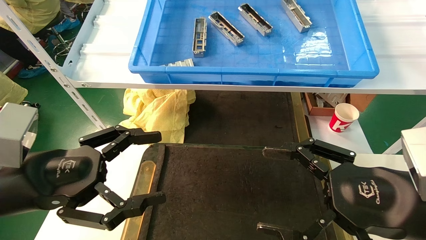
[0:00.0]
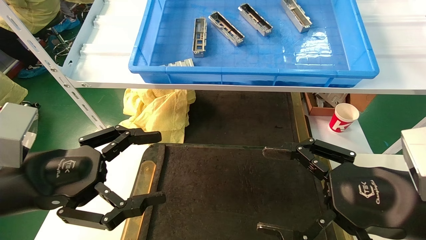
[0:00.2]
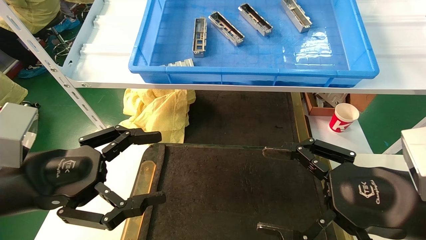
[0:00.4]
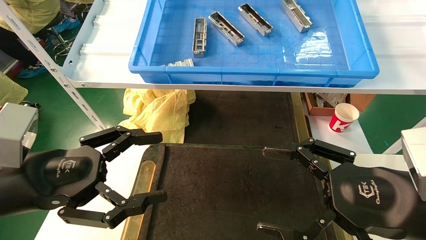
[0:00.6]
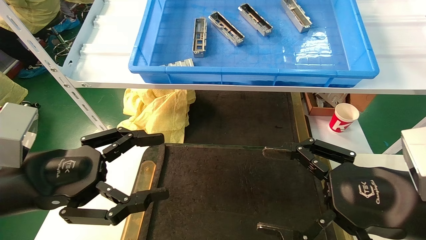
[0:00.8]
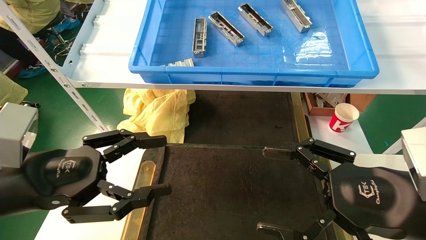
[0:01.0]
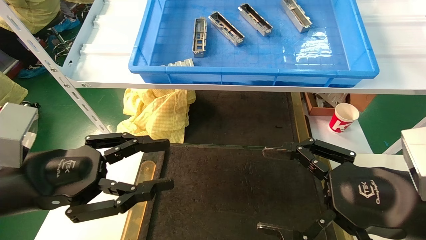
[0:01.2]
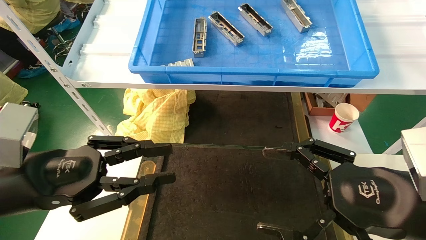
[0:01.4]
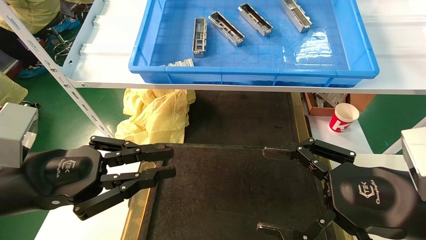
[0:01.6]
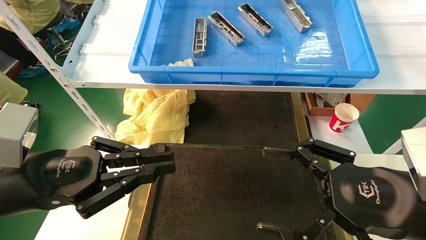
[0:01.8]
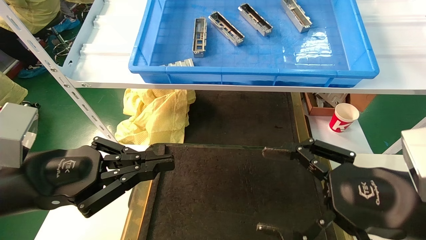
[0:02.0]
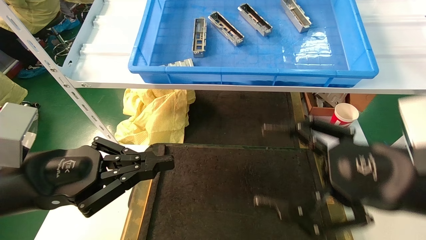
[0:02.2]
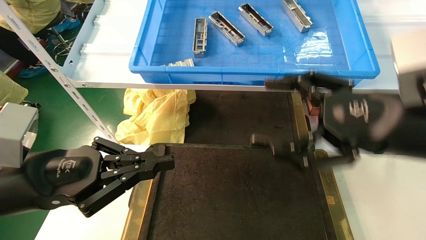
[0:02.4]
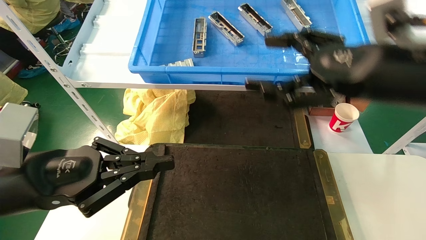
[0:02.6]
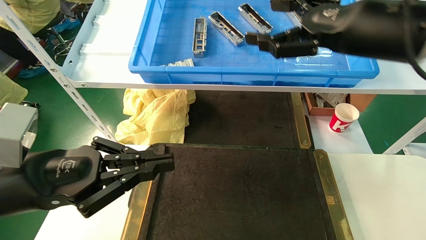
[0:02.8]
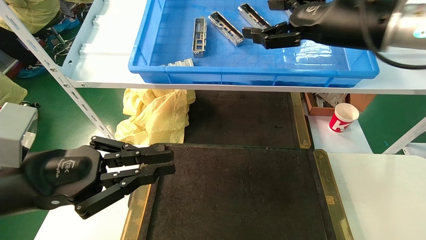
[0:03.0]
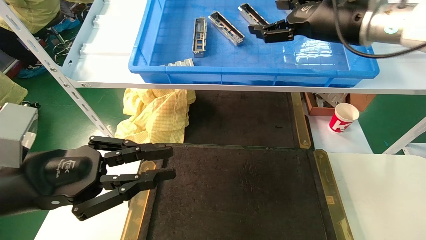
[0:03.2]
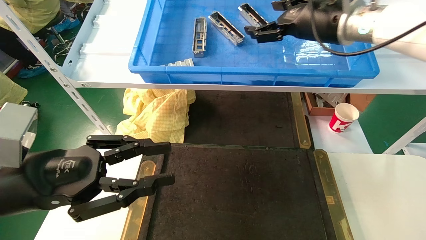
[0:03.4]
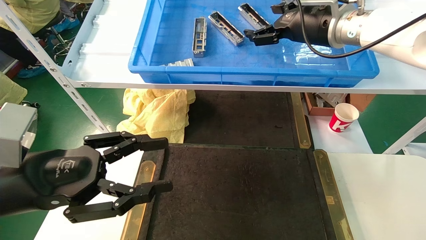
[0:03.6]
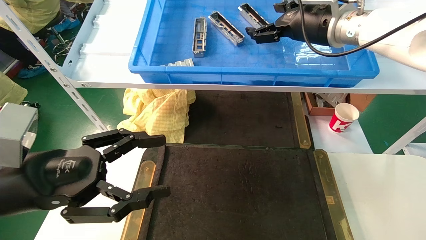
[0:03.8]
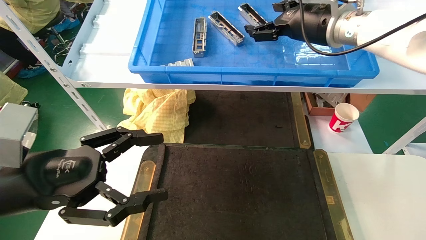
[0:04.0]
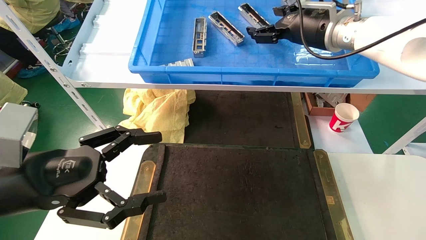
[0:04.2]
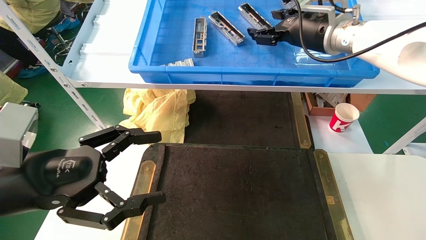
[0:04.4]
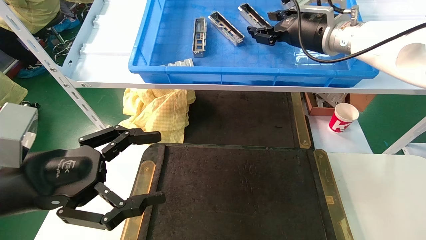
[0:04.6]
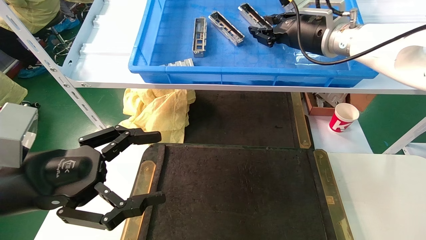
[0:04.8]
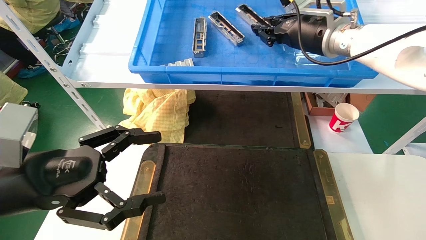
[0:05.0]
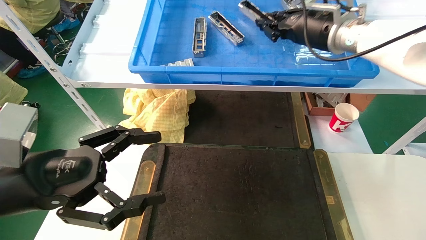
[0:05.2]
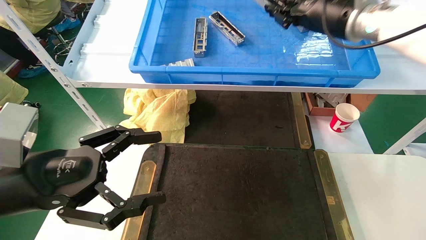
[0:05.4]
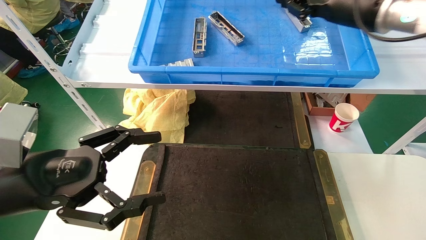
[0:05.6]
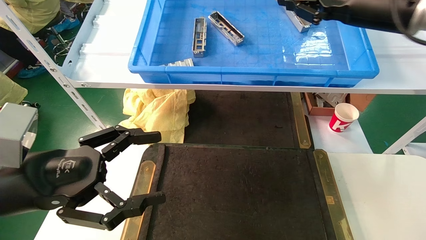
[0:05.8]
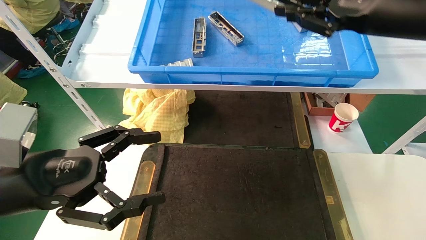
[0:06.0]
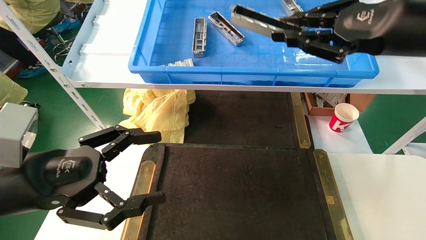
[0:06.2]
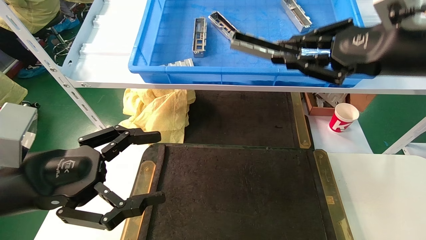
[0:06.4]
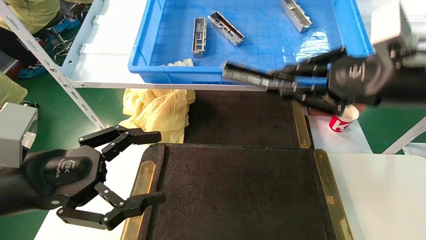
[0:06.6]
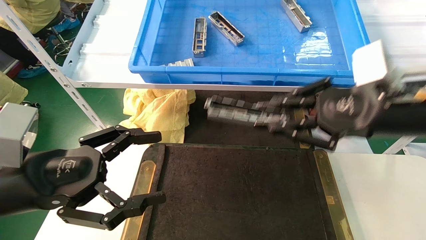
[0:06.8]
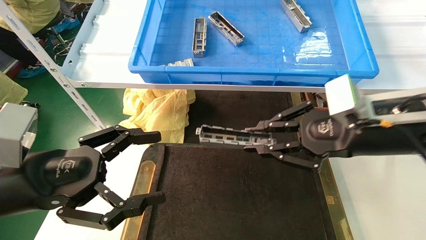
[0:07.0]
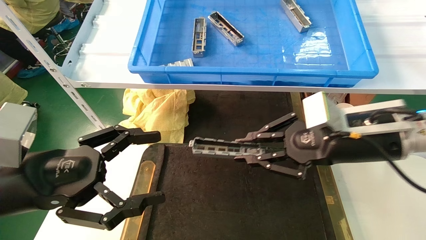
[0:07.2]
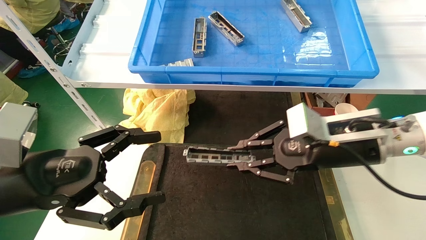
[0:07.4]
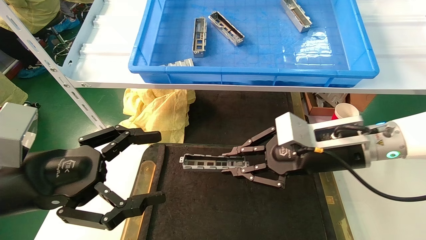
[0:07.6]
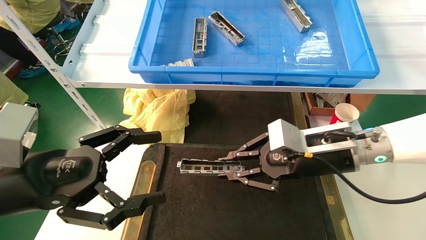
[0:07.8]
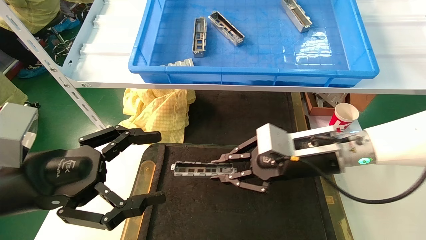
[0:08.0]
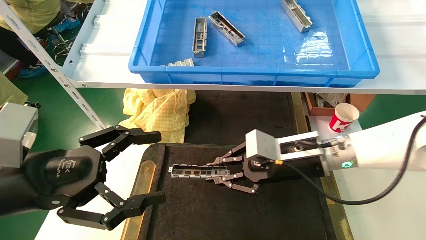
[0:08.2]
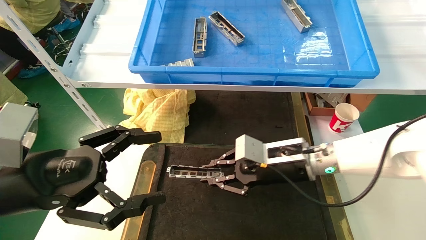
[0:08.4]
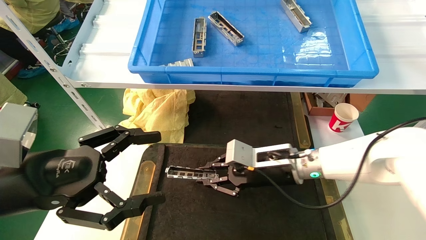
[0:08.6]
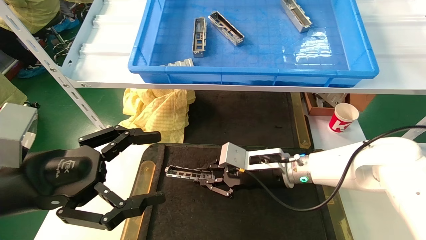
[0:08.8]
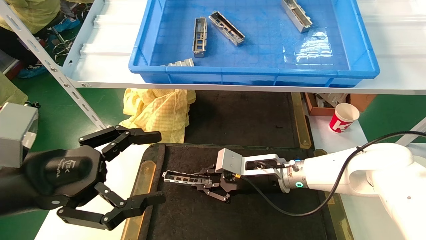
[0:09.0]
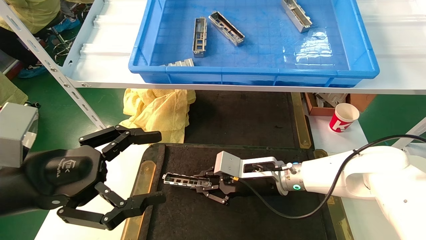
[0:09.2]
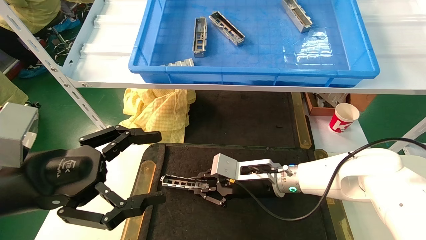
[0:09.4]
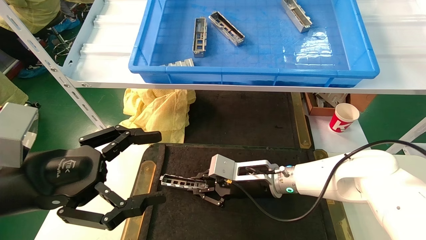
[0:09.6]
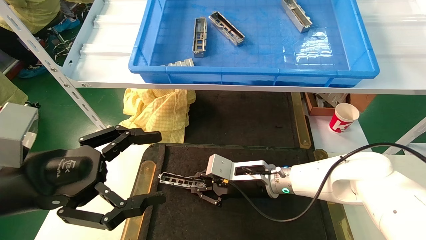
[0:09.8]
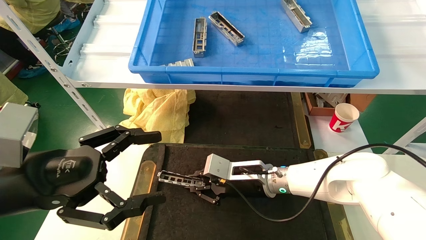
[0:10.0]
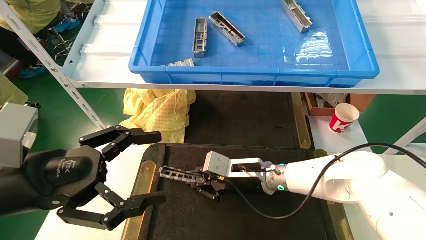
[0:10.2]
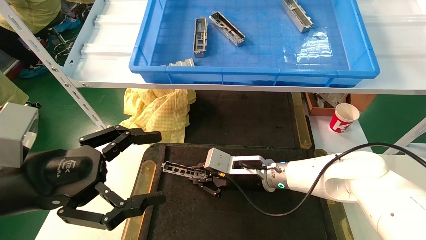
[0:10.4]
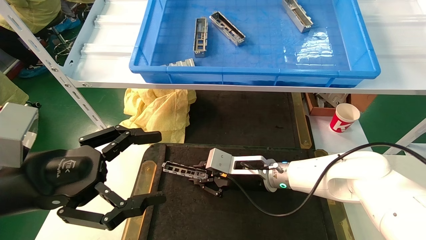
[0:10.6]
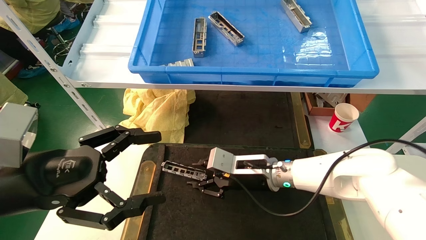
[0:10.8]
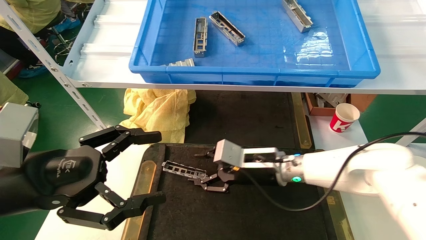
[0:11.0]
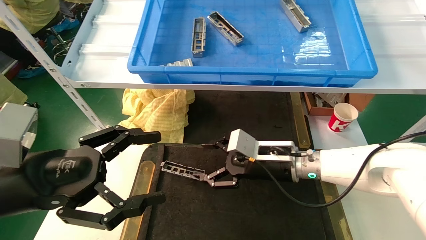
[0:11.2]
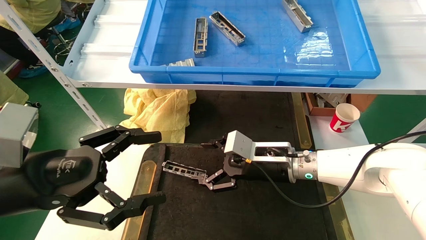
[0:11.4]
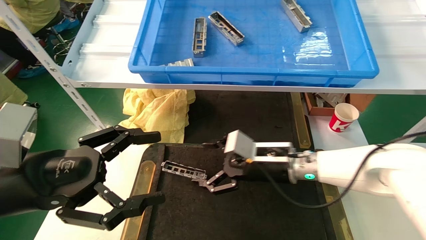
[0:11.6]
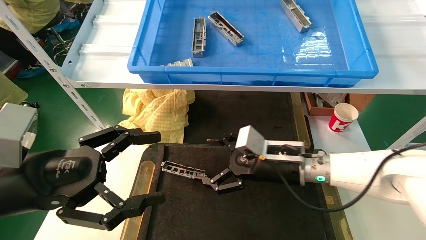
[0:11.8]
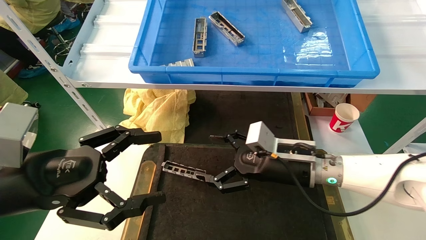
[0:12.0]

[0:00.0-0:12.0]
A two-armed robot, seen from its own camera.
Task of the whole recording: grasp the part and place them on the black container.
Step, 0:02.8 to 0:05.8: Pick up and lift the front USB bracket from the feeding area.
Step, 0:06.0 to 0:11.2: Place the front USB bracket into the box.
0:00.0 to 0:01.6: The left gripper closes up.
0:01.6 to 0:03.0: The right gripper shifts approximately 25 cm upward and forward.
0:03.0 to 0:04.4: The right gripper travels forward by about 10 cm, while the left gripper opens.
0:04.4 to 0:06.0: The right gripper heads backward and to the right, covering roughly 15 cm, and closes its fingers.
0:06.0 to 0:07.6: The right gripper moves downward and to the left, roughly 20 cm.
0:07.6 to 0:09.0: The right gripper travels downward, to the left and forward by some 15 cm.
0:09.0 to 0:10.4: The grippers move only a little.
0:10.4 to 0:12.0: The right gripper travels to the right, backward and upward by about 10 cm, and opens up.

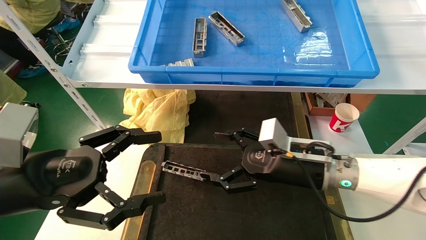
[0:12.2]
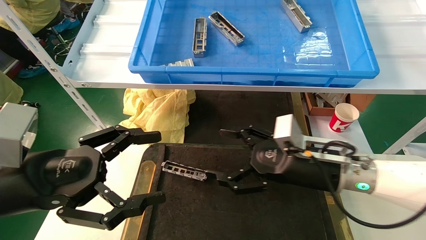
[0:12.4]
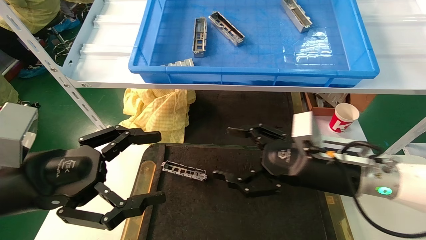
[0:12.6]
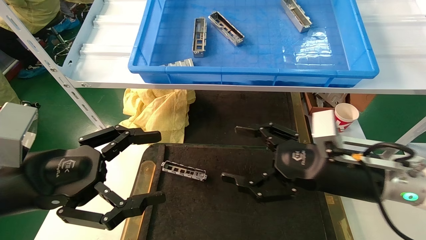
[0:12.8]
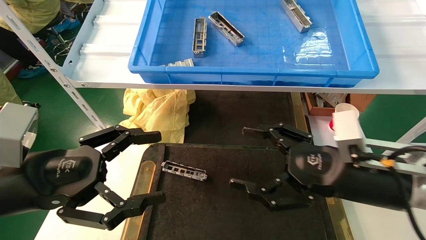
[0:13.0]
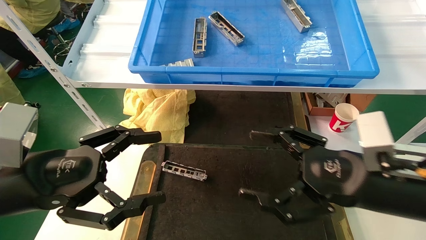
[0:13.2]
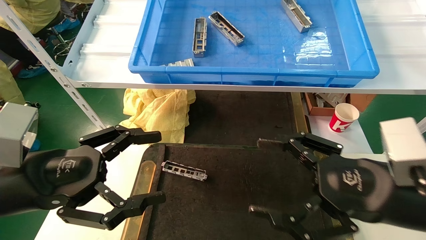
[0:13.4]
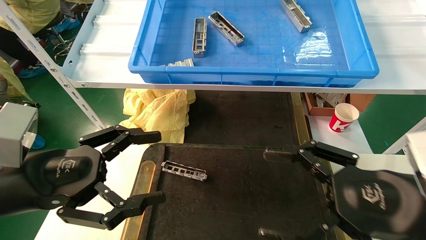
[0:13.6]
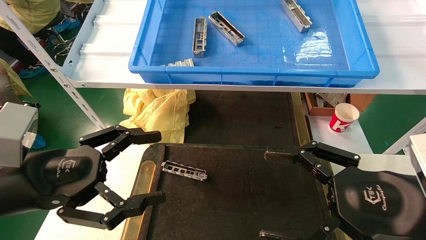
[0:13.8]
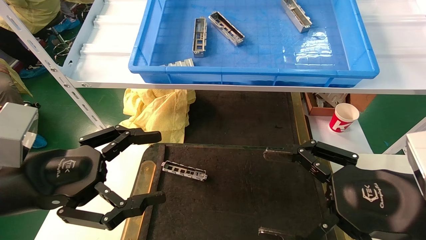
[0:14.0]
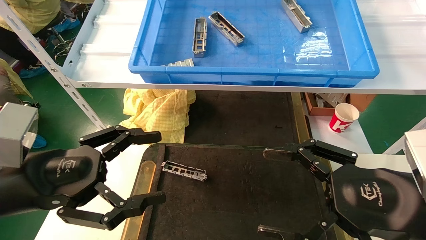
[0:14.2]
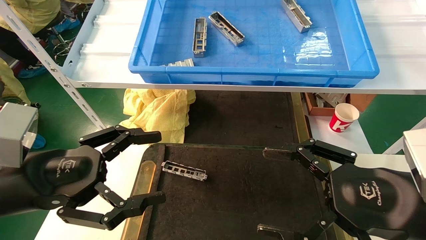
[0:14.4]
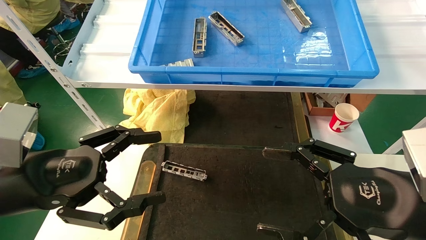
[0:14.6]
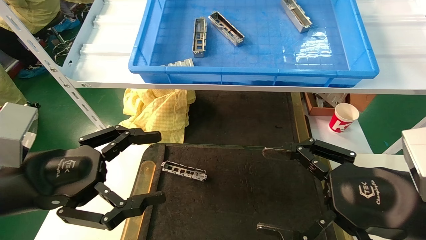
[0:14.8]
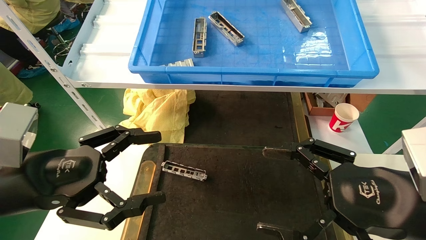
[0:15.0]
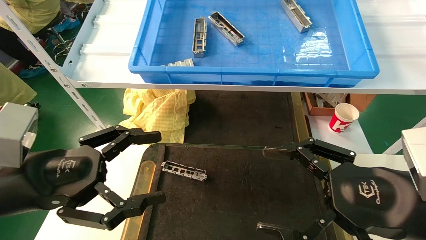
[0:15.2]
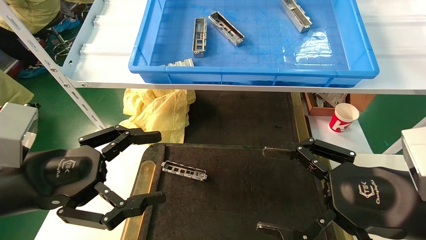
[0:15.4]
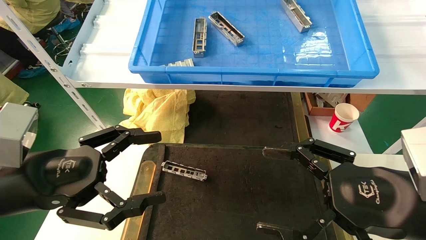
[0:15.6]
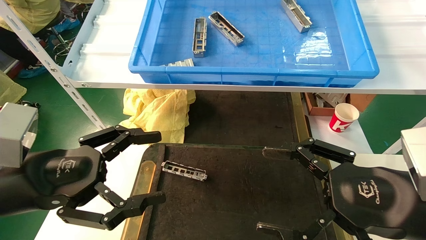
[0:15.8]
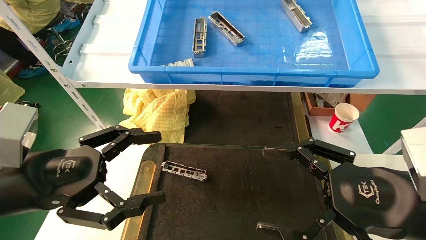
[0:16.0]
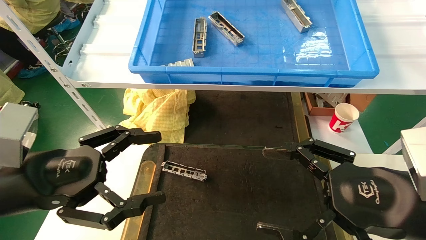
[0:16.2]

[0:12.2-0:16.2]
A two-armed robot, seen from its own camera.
Task of the whole recording: grasp the part and place them on the black container.
0:12.2 to 0:13.6: The right gripper goes some 20 cm backward and to the right.
0:13.6 to 0:16.2: Both grippers stay about where they are.
